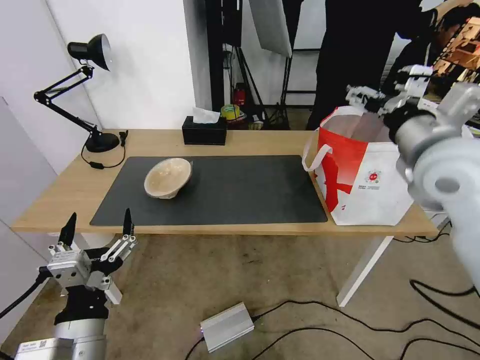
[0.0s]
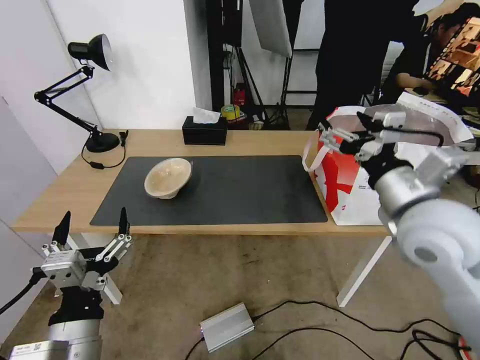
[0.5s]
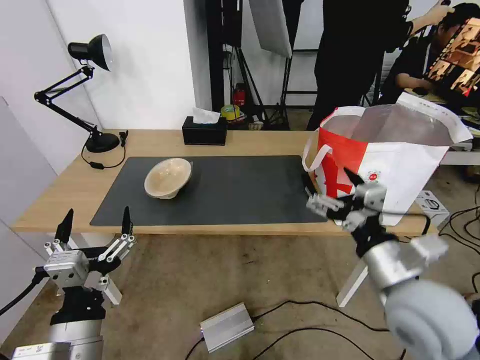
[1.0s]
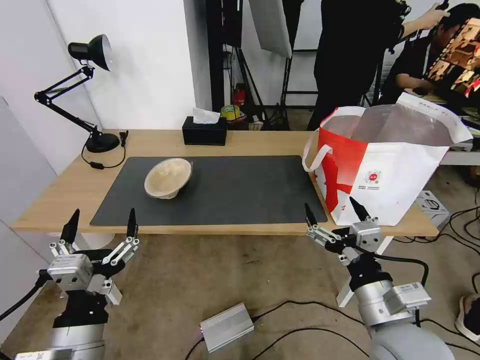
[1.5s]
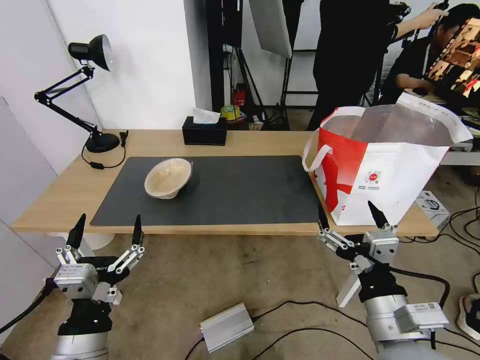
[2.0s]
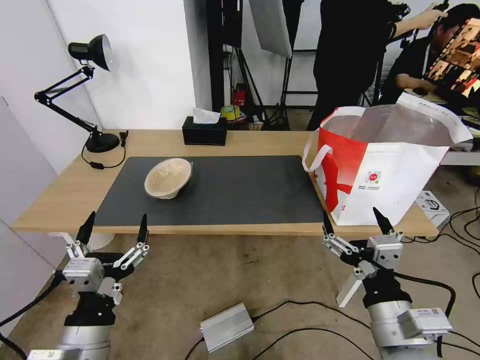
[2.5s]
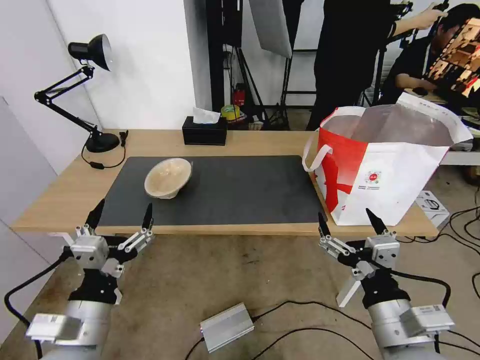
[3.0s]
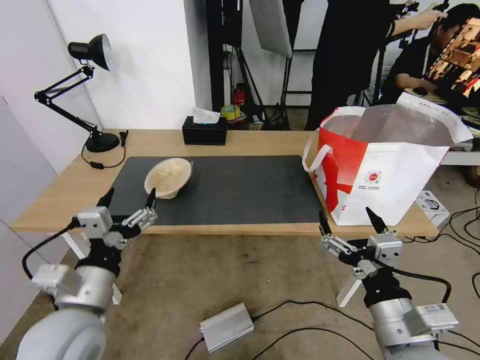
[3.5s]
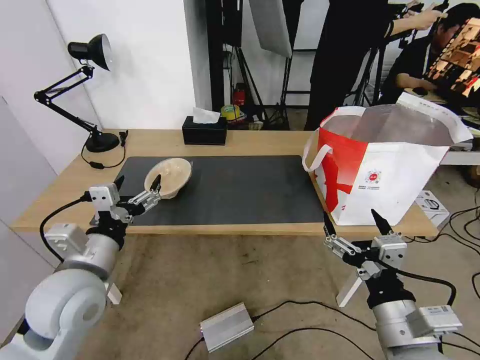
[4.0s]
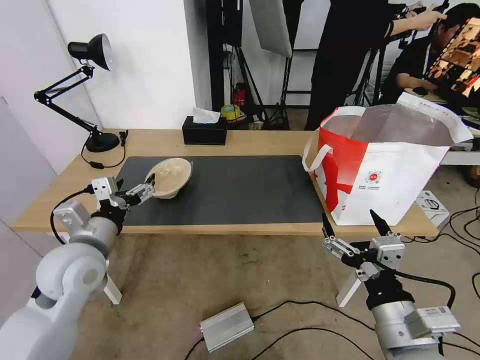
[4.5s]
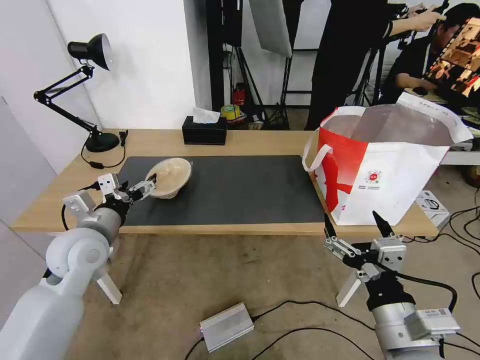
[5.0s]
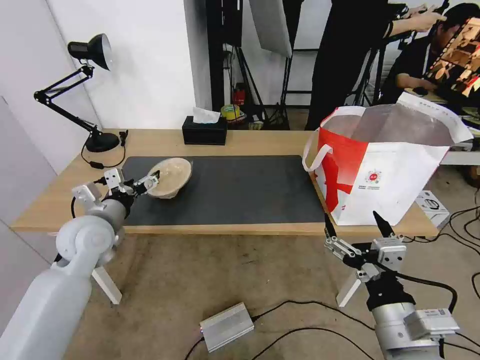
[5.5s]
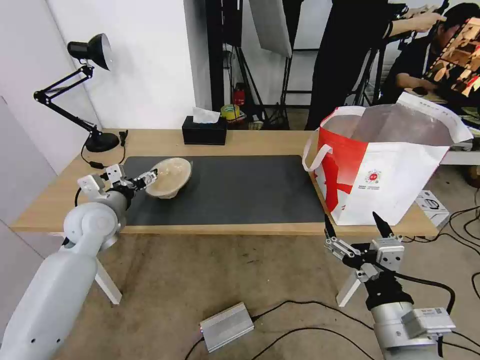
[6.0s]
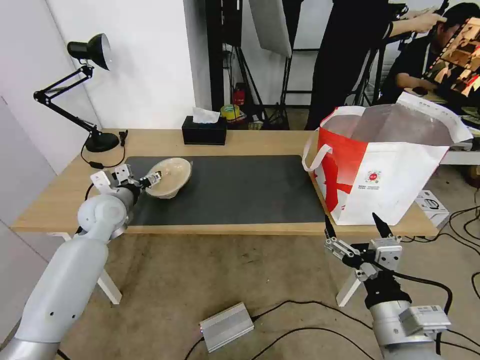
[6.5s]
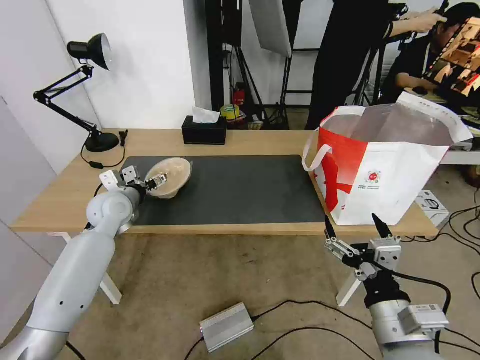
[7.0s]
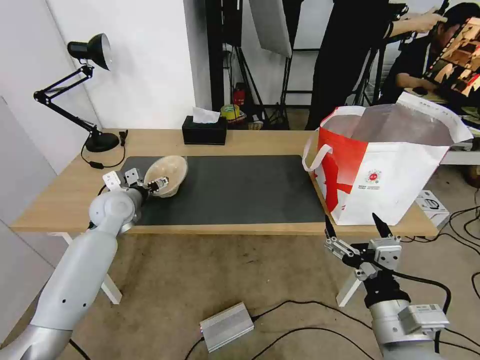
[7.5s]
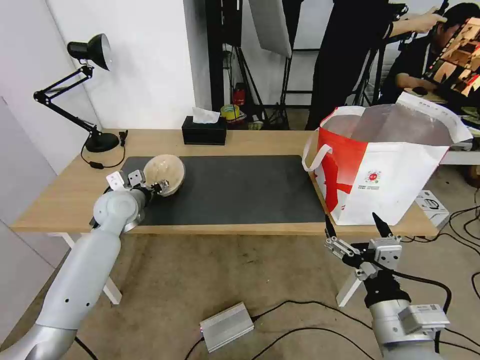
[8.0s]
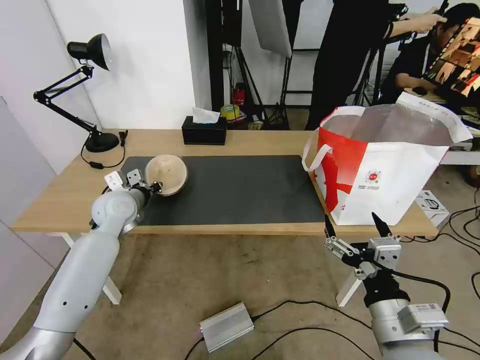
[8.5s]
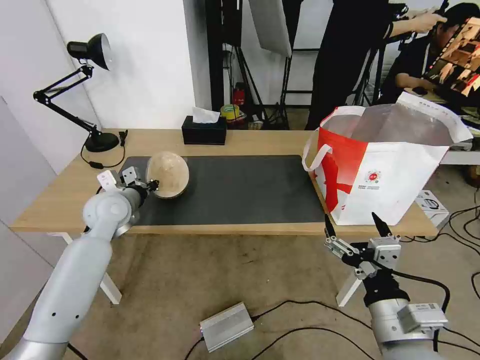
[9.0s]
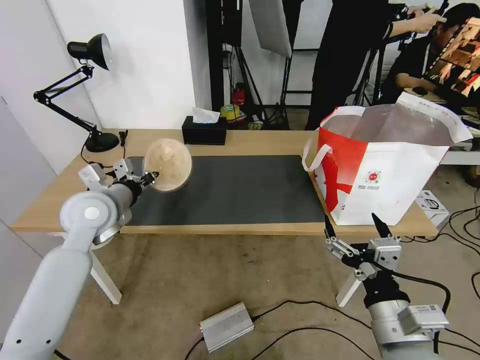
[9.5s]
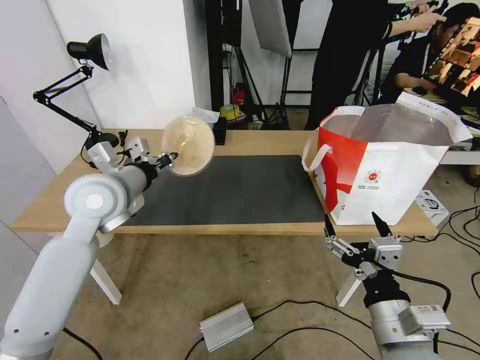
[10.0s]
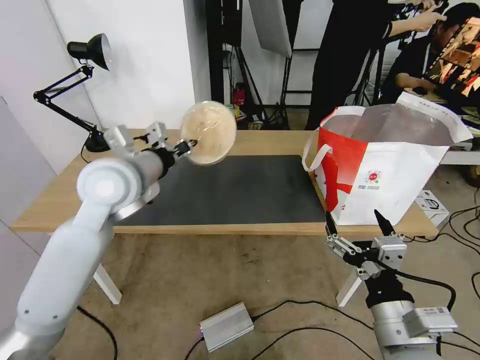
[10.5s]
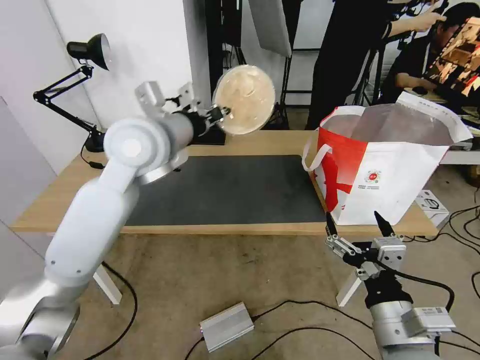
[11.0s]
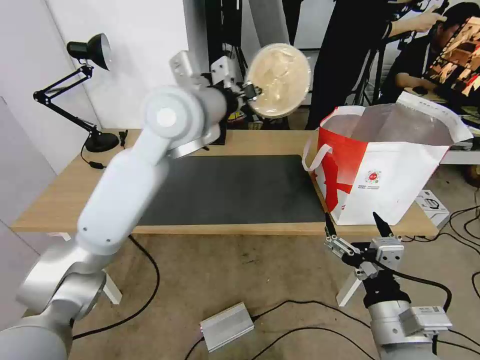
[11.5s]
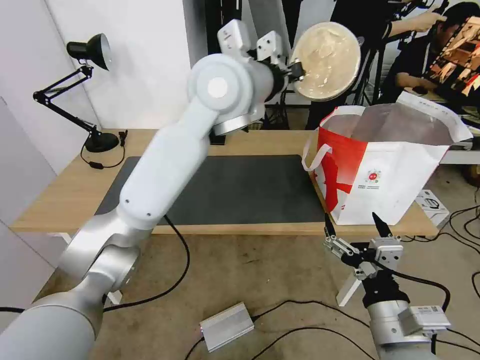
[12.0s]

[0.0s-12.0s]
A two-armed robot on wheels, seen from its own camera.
Task of the whole recording: Pick up the trash from the table and place it into the takeout bag.
0.0s to 2.0s: The right gripper heads backward and downward, covering some 30 cm.
2.0s to 4.0s: The left gripper shifts roughly 15 cm forward and upward.
4.0s to 6.0s: The left gripper is displaced forward by approximately 15 cm.
6.0s to 8.0s: The left gripper moves forward, some 5 cm, and closes up.
8.0s to 10.0s: The left gripper moves upward and backward, about 15 cm, and closes its fingers.
10.0s to 12.0s: The left gripper moves to the right and upward, about 30 cm.

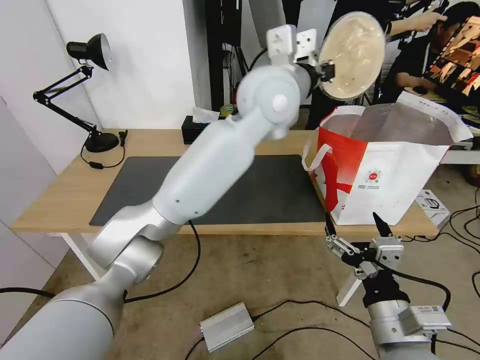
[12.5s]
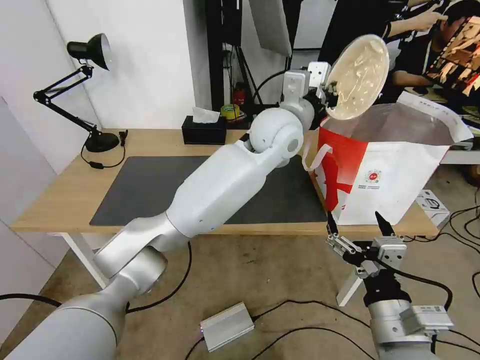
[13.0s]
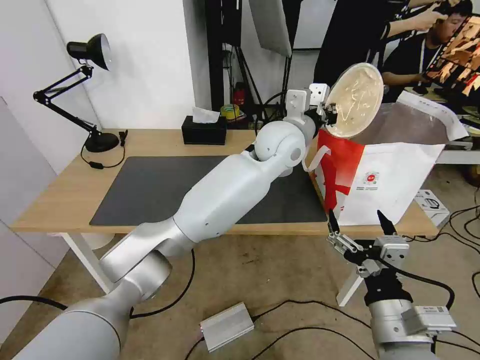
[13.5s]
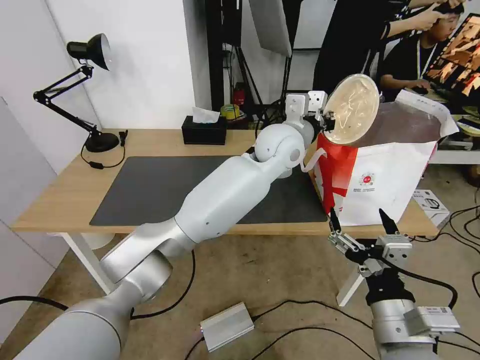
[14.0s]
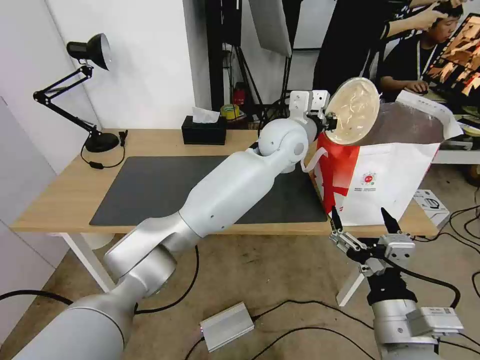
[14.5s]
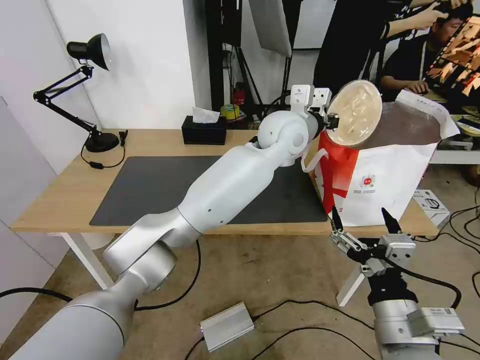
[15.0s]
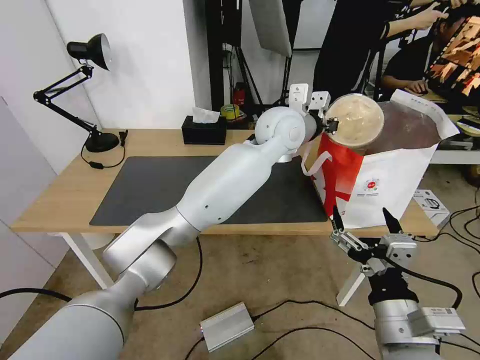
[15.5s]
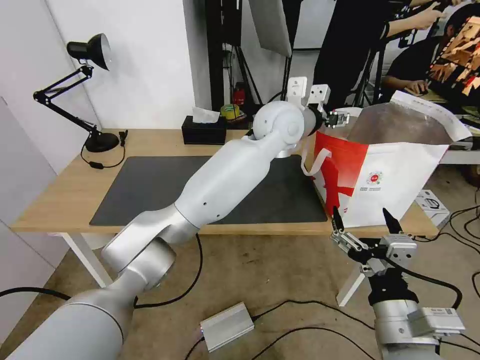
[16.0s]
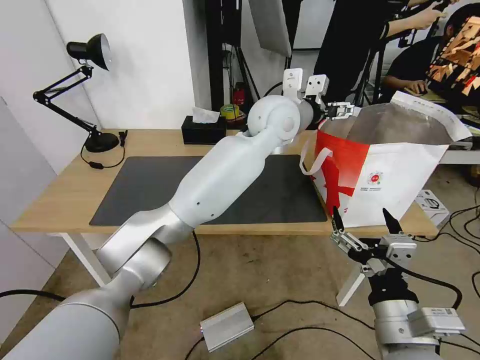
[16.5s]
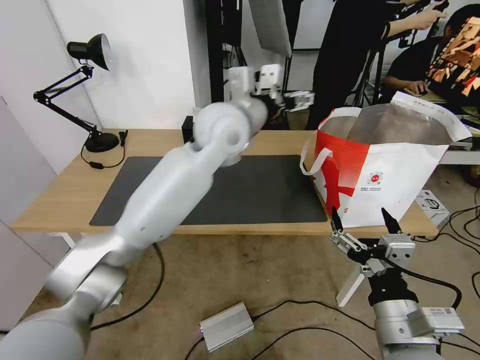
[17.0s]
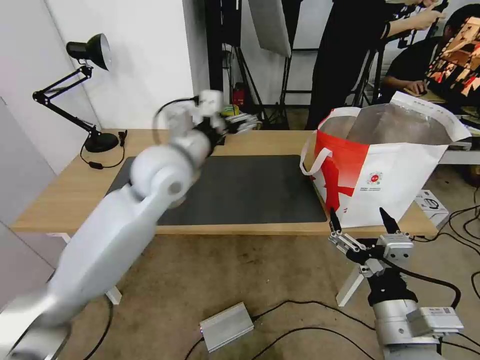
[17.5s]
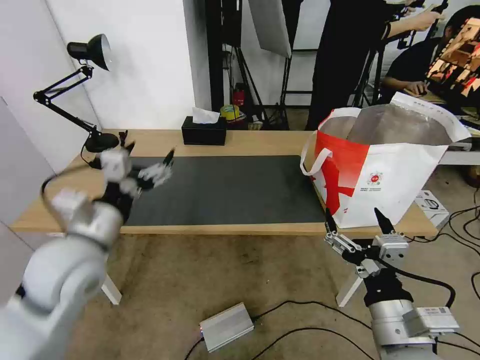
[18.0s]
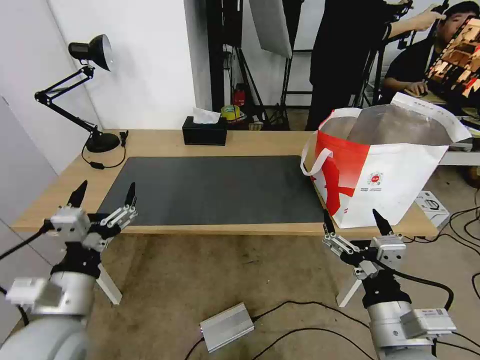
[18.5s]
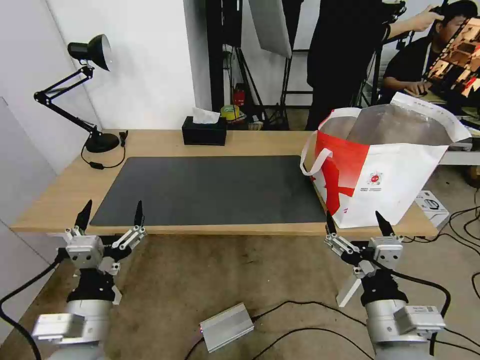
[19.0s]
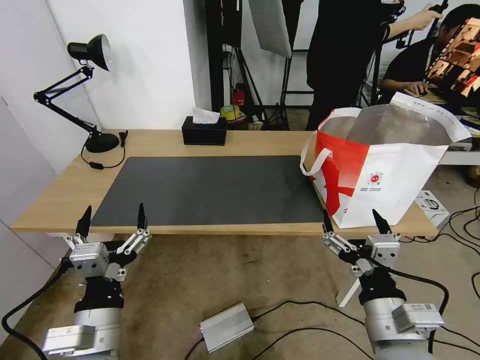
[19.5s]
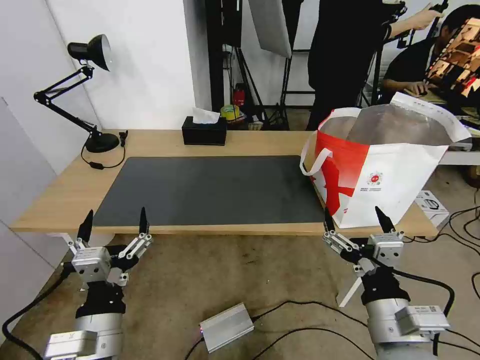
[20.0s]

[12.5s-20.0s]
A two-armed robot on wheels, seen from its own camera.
Task of the whole recording: Pick up the trash from the table and place it into the takeout bag.
12.5s to 14.5s: The left gripper heads downward, covering about 10 cm.
14.5s to 16.5s: The left gripper moves roughly 5 cm, and opens.
16.5s to 18.0s: The left gripper goes roughly 40 cm to the left and backward.
18.0s to 20.0s: The left gripper travels backward and downward by roughly 15 cm.
